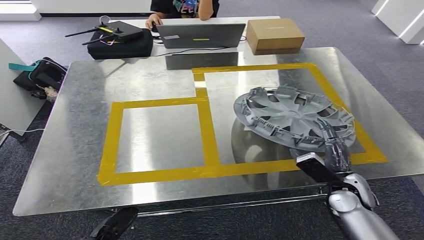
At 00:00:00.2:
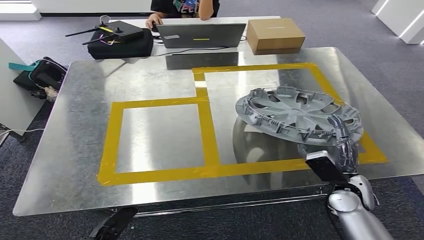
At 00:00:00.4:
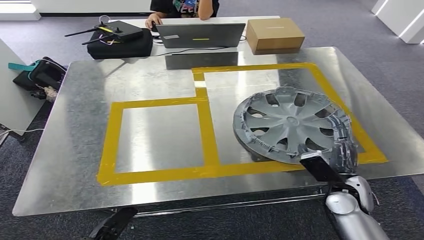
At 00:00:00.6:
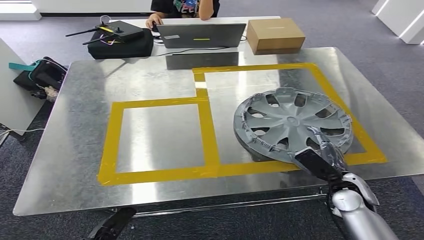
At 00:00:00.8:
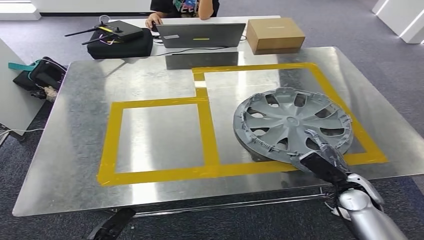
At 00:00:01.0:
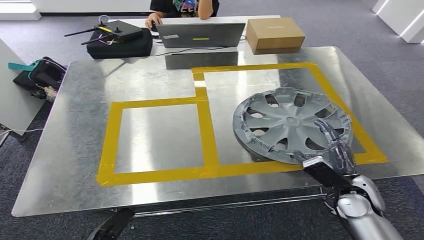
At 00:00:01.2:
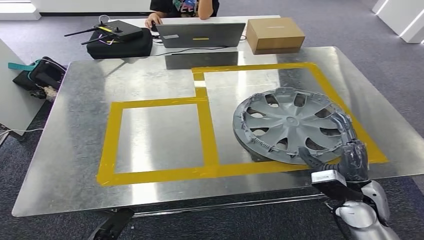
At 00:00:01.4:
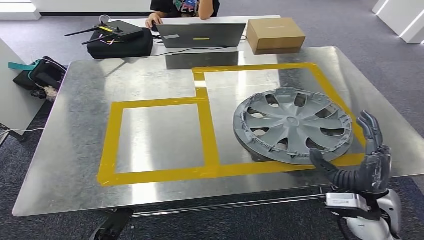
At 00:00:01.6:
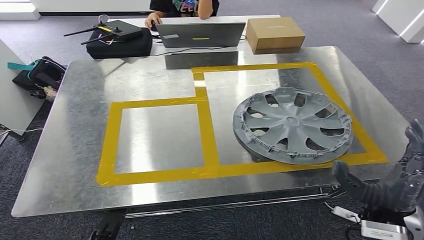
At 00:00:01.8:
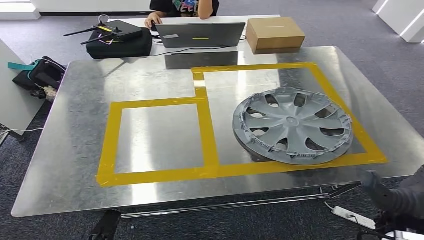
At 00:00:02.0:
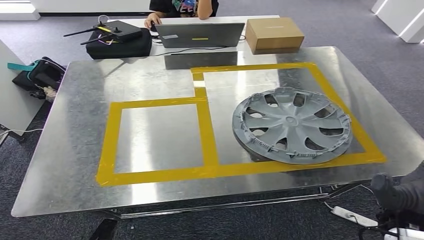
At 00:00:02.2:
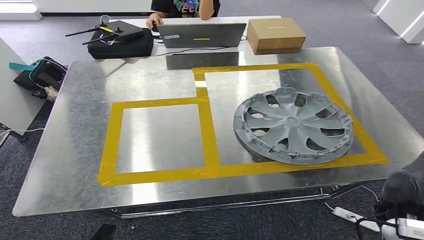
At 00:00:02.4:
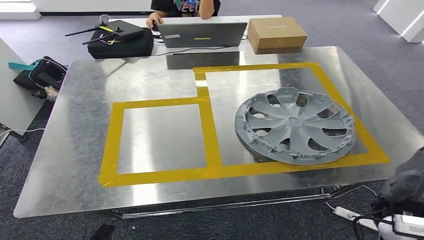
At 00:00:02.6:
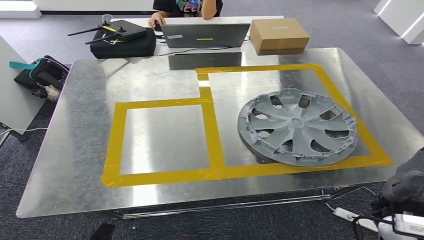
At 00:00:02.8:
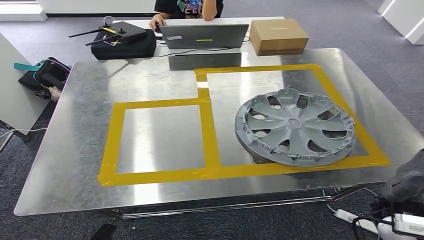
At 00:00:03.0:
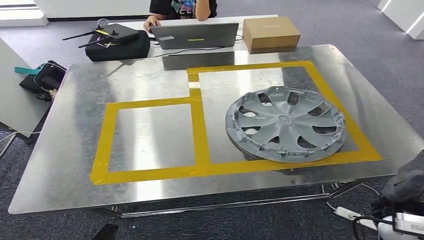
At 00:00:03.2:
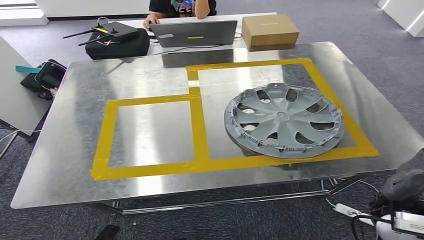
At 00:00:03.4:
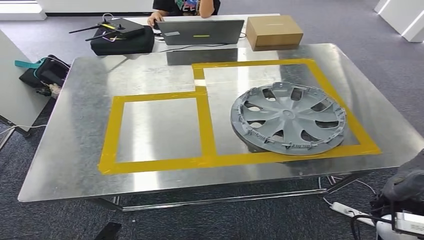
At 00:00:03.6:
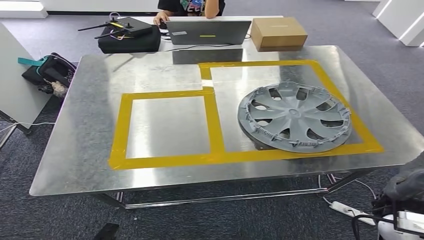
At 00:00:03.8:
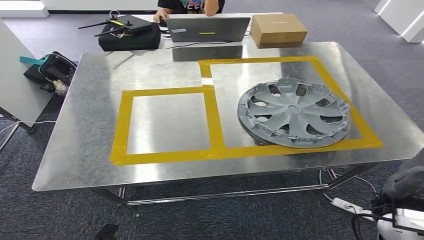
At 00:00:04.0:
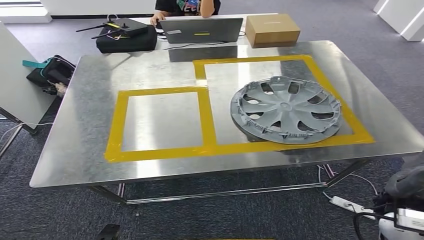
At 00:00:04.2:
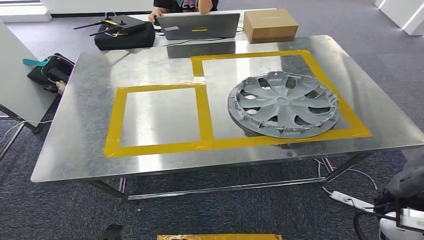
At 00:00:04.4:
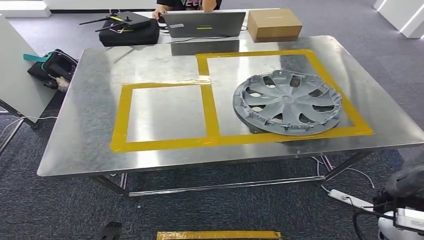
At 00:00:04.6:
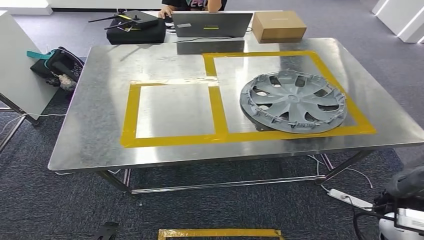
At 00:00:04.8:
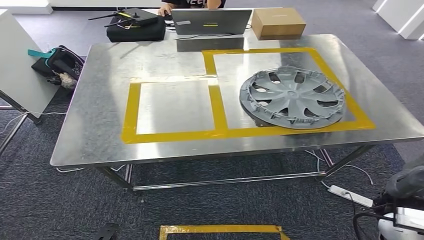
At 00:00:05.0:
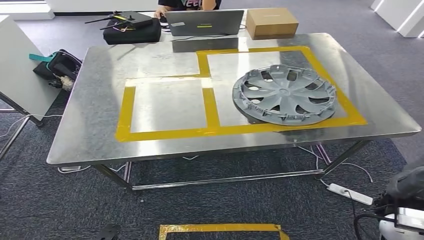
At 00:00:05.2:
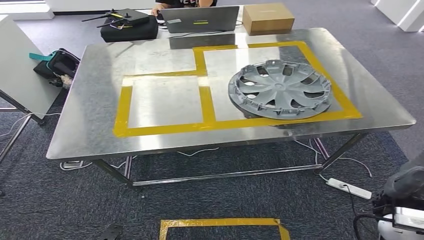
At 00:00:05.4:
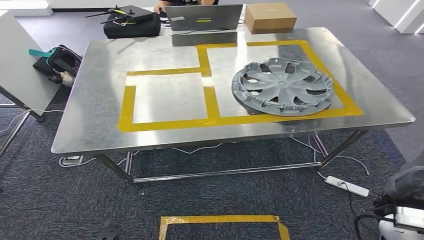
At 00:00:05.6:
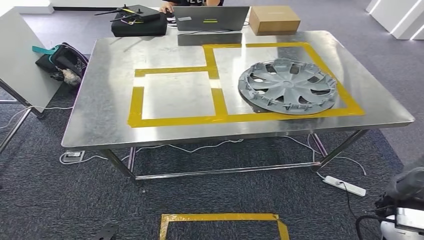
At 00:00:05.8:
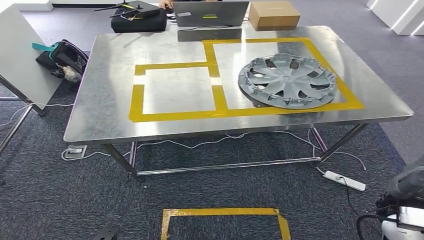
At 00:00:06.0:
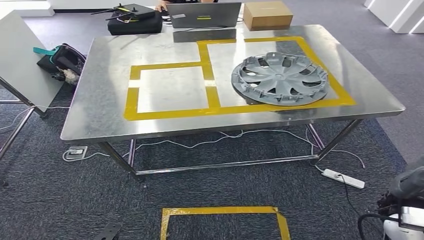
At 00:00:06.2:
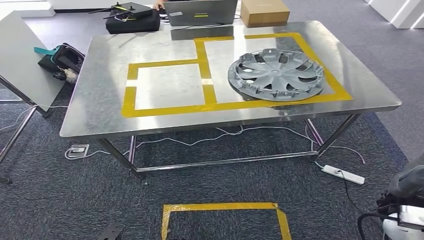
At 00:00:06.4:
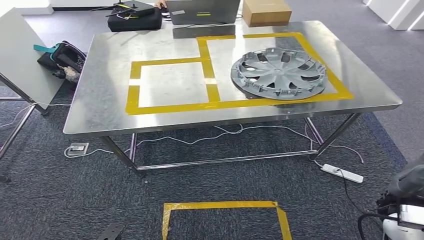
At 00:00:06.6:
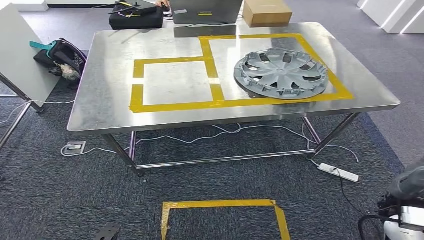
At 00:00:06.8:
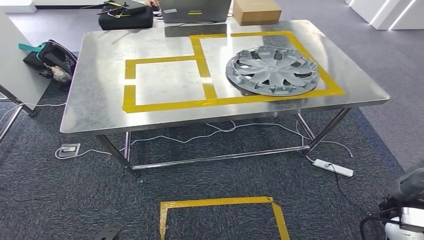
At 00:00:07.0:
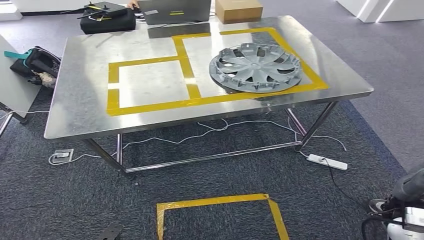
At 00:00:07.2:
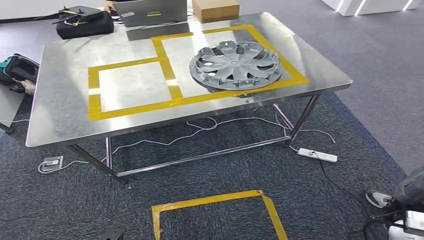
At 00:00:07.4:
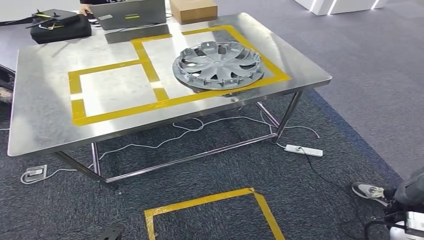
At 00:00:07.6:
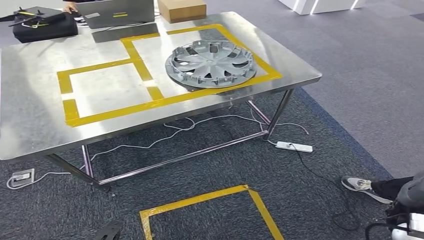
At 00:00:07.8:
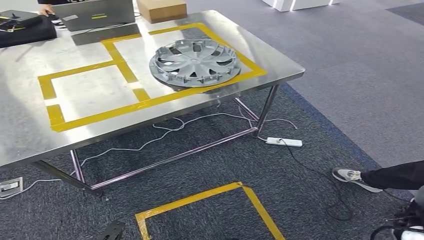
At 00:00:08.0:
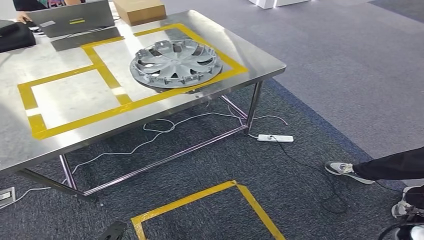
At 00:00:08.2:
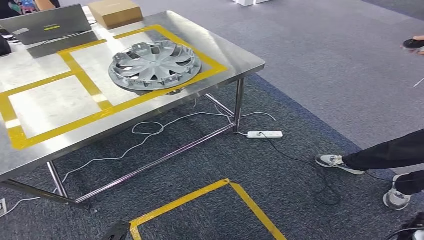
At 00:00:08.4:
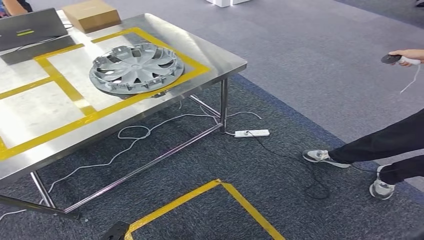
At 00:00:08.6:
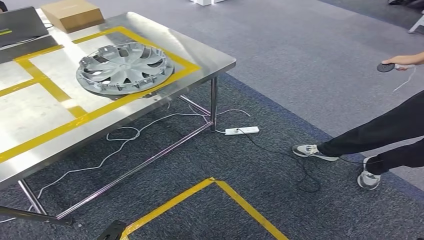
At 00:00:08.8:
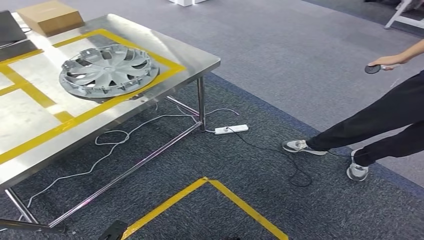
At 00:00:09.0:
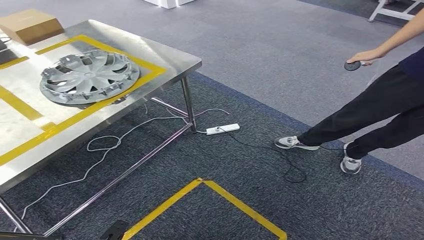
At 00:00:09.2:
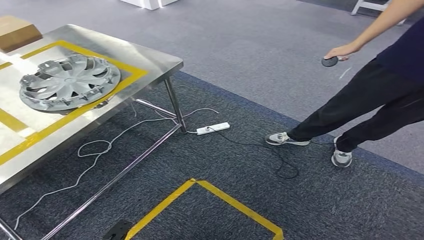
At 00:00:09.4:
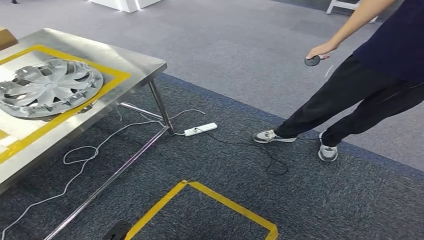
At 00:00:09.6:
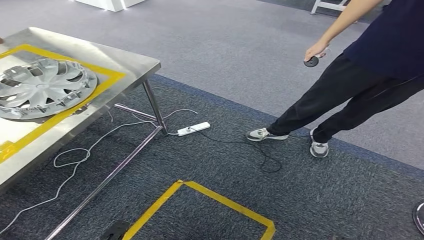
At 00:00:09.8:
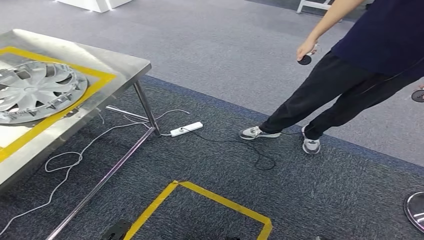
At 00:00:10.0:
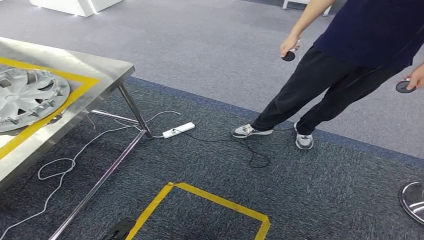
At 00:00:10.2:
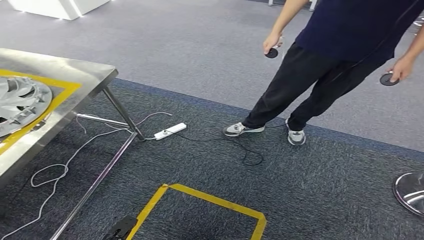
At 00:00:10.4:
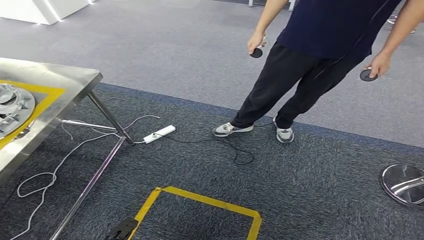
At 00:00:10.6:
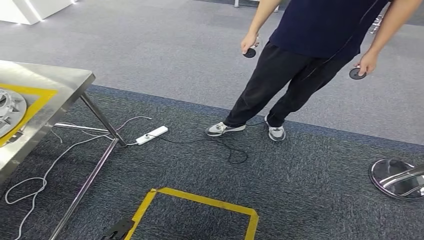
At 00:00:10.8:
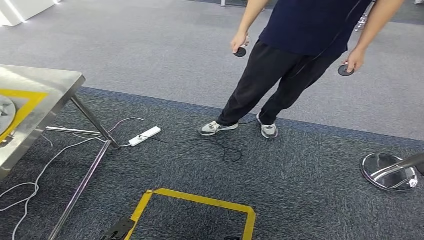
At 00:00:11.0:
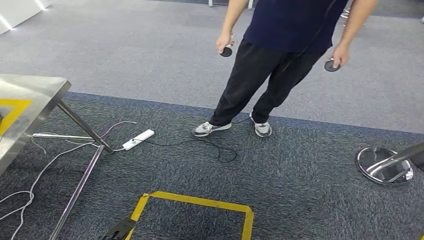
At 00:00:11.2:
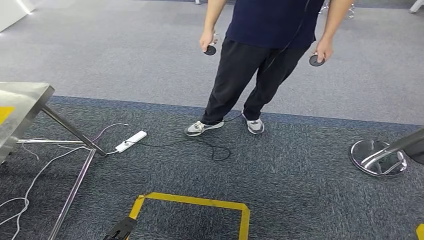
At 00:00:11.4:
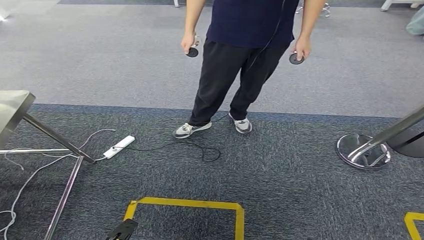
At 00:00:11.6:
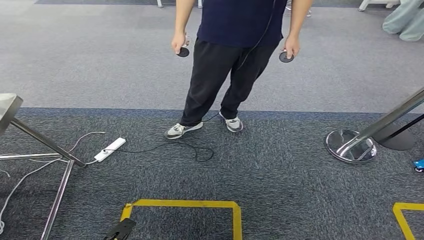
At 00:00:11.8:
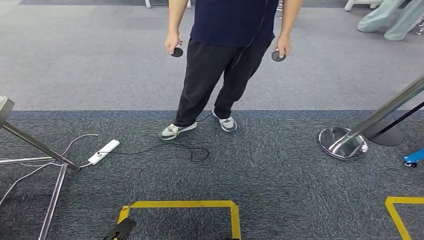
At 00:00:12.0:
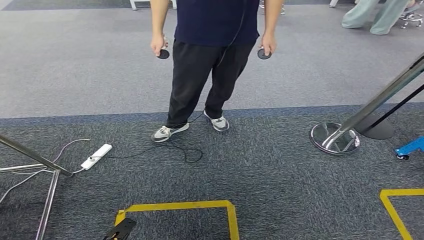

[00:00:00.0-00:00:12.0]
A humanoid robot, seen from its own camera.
Step, 00:00:00.0 to 00:00:02.2: Insert the small component into the corresponding slot on the workbench.
00:00:00.0 to 00:00:01.6: The right hand heads upward and backward, covering about 15 cm.

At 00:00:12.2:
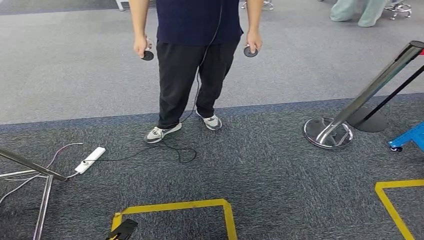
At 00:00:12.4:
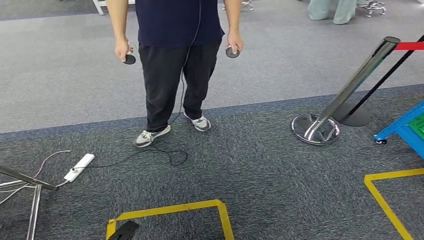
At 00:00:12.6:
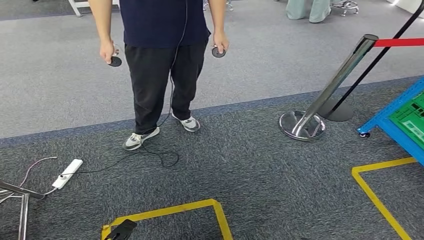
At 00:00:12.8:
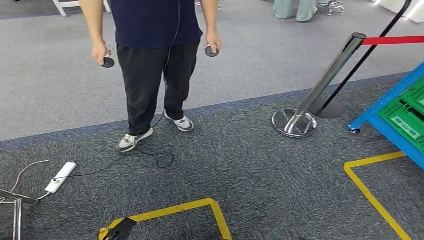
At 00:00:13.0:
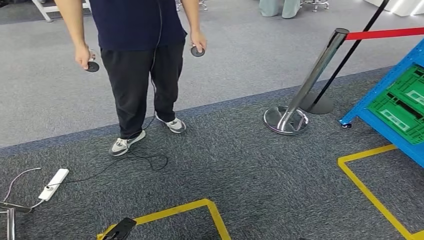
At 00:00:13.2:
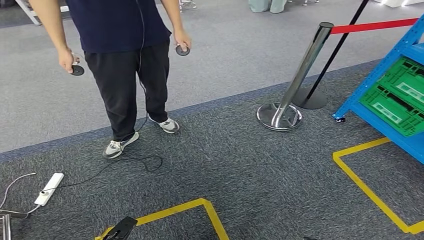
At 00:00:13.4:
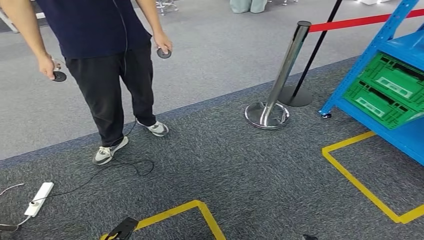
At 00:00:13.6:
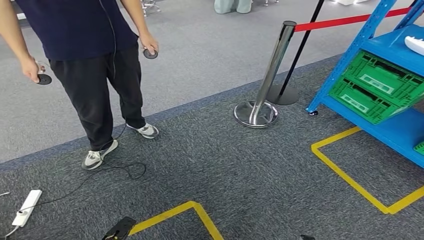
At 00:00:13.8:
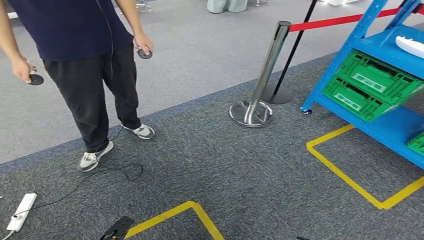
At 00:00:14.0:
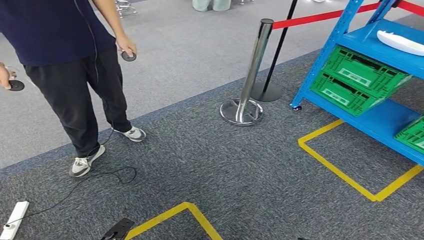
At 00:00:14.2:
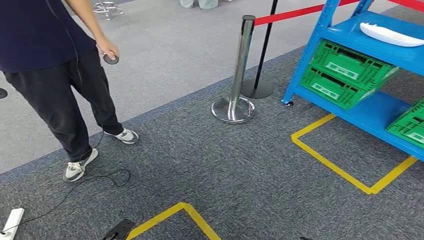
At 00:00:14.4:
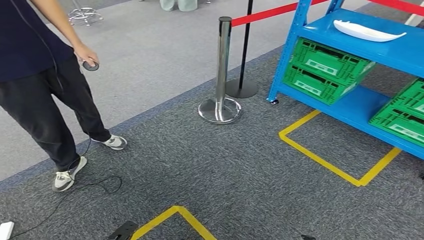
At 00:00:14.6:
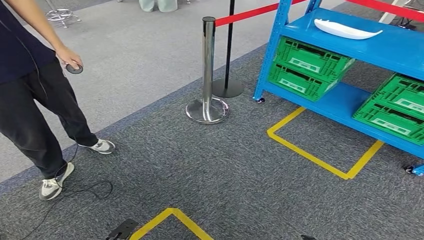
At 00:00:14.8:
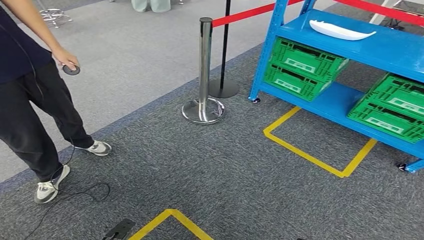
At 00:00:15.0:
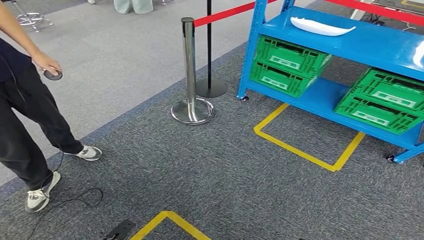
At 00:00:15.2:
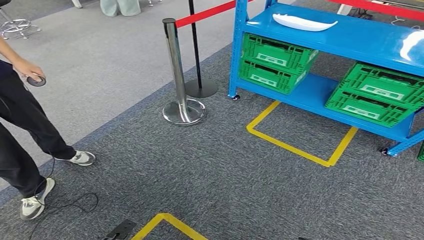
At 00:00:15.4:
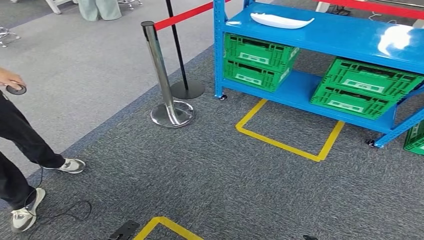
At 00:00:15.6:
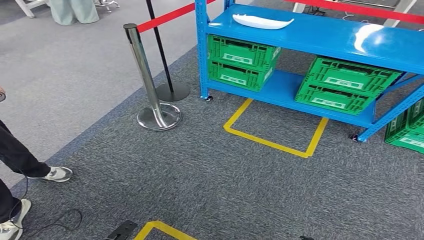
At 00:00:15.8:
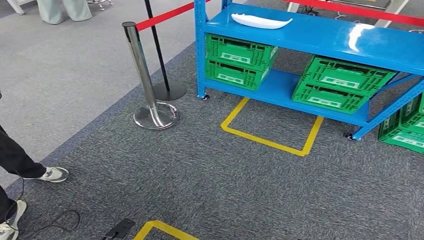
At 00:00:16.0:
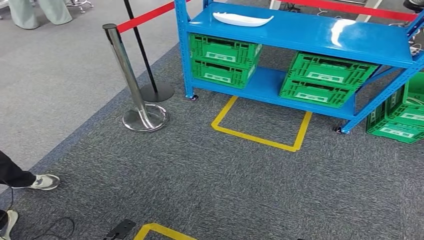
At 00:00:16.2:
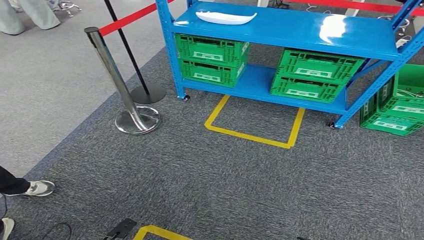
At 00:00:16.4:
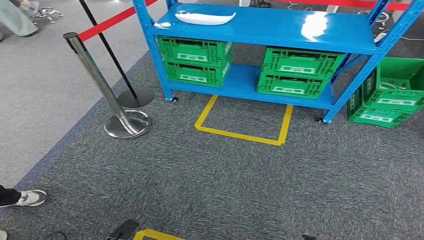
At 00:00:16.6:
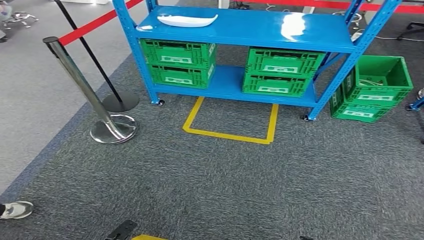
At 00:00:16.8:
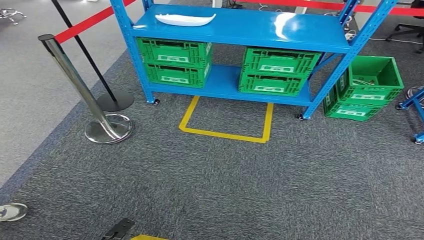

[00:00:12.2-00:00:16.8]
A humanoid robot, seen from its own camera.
Step, 00:00:12.2 to 00:00:16.8: Move to the initial position at the workbench.
